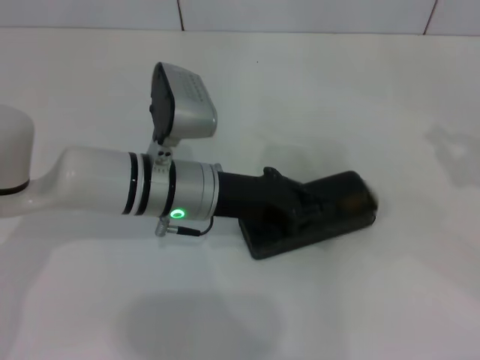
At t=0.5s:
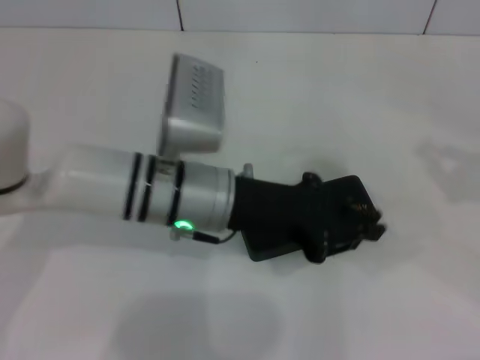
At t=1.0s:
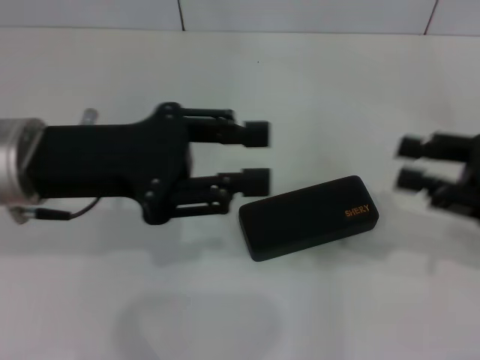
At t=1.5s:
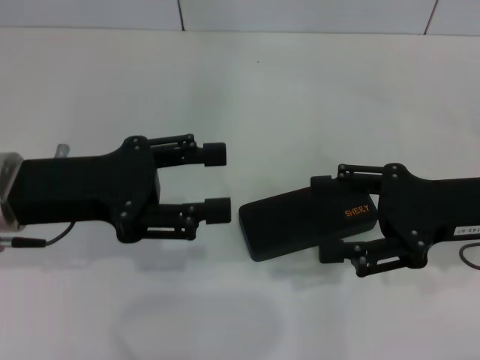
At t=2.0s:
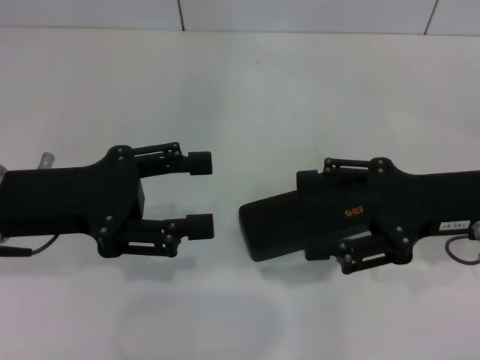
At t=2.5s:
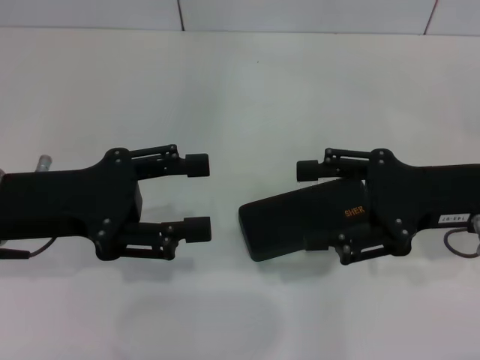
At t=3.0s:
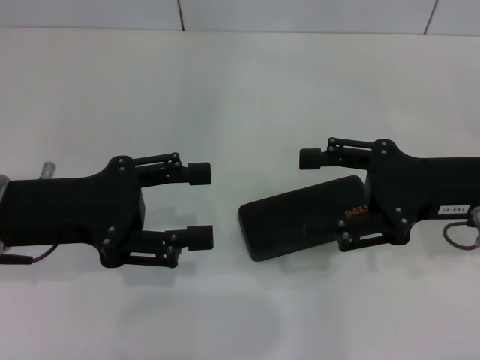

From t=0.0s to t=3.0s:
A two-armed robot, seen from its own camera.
From t=0.0s to t=1.5s: The left gripper goes some 15 cm to the left, upward and backward, and opens. The right gripper is displaced to the left by about 15 cm, and opens.
From t=1.5s to t=3.0s: The grippers move only a little.

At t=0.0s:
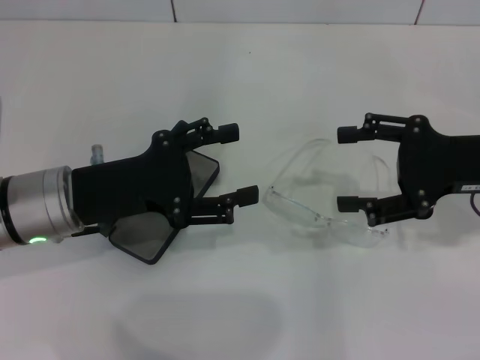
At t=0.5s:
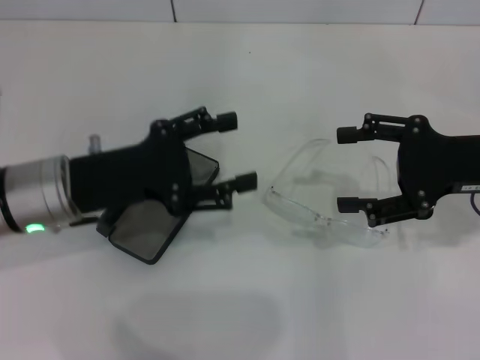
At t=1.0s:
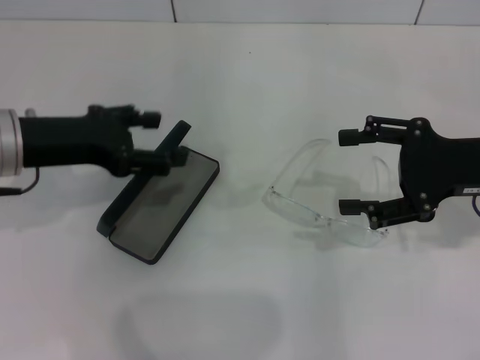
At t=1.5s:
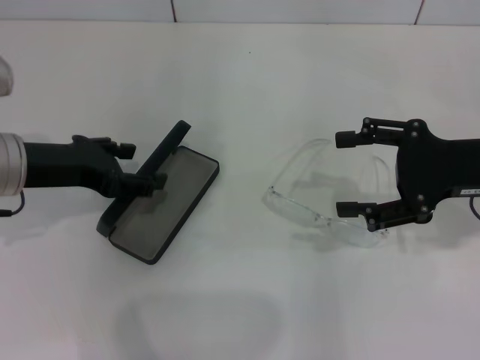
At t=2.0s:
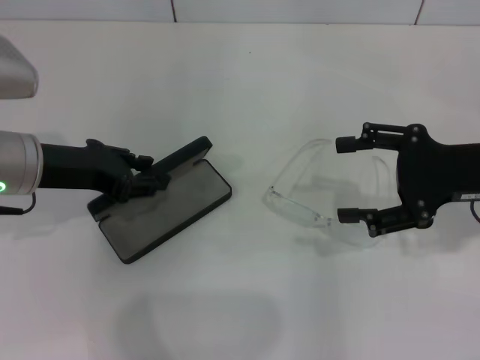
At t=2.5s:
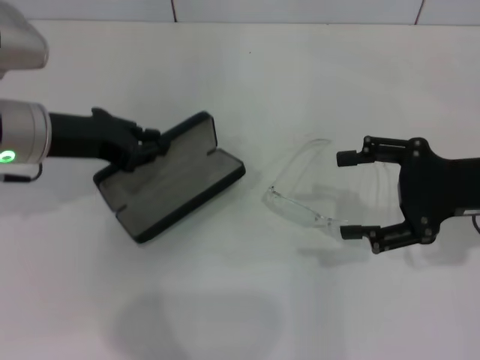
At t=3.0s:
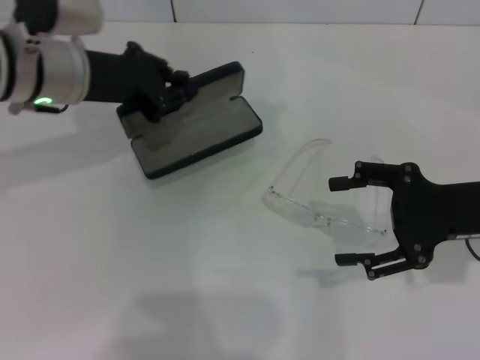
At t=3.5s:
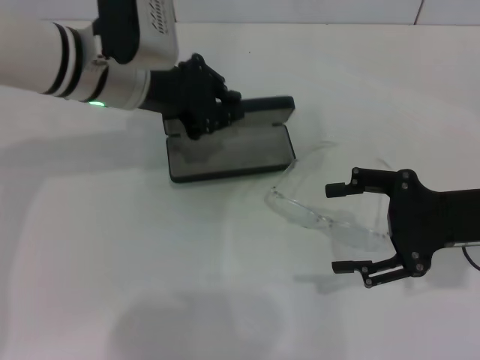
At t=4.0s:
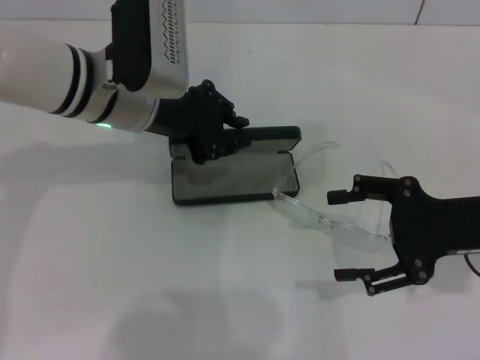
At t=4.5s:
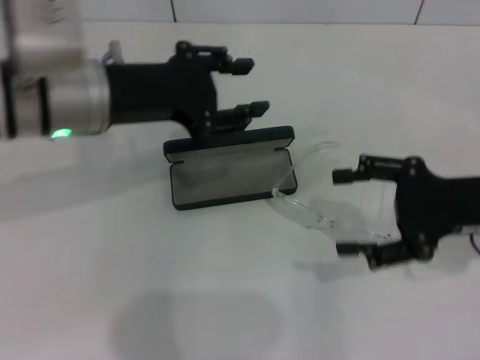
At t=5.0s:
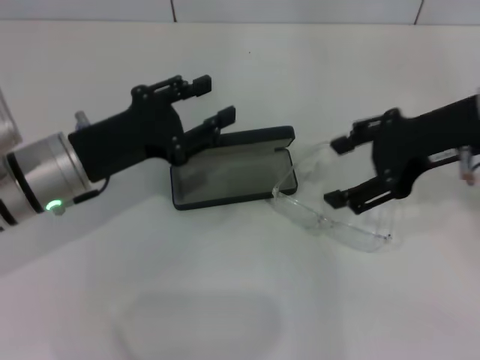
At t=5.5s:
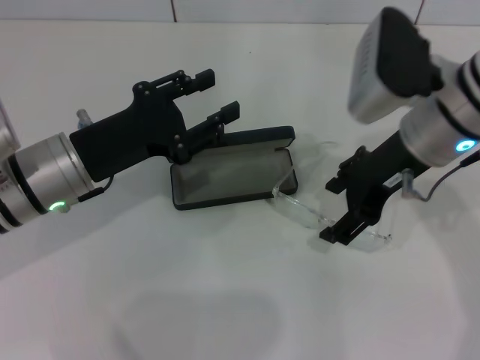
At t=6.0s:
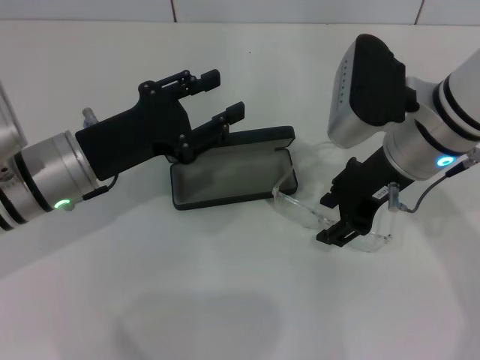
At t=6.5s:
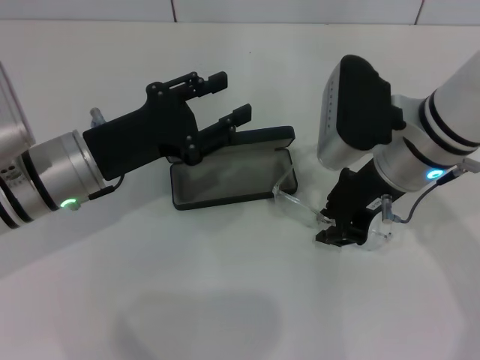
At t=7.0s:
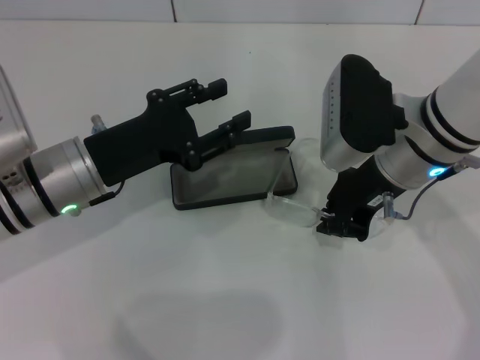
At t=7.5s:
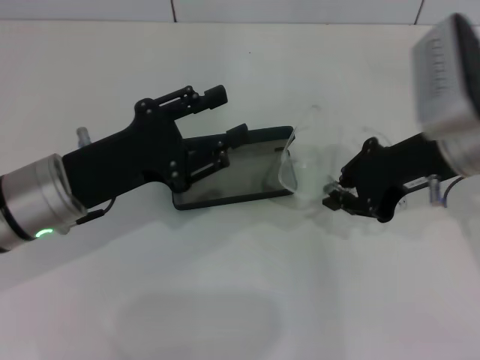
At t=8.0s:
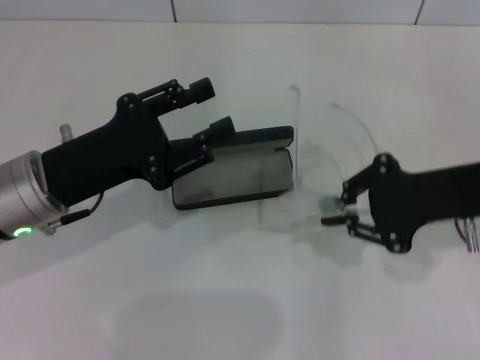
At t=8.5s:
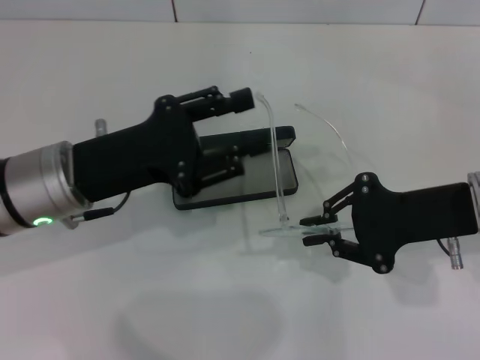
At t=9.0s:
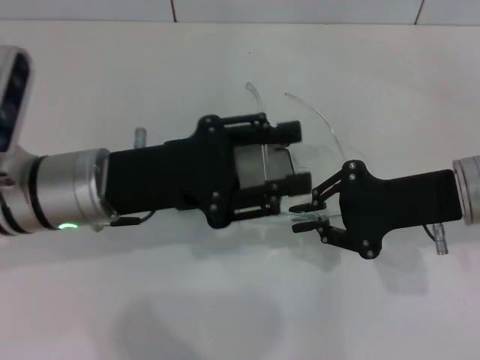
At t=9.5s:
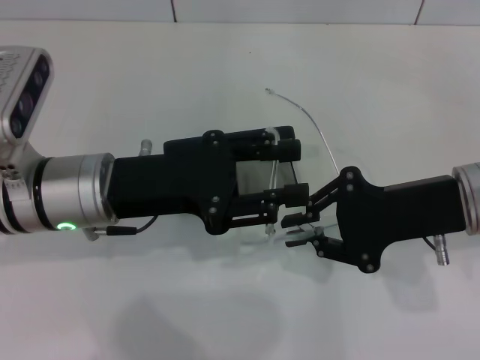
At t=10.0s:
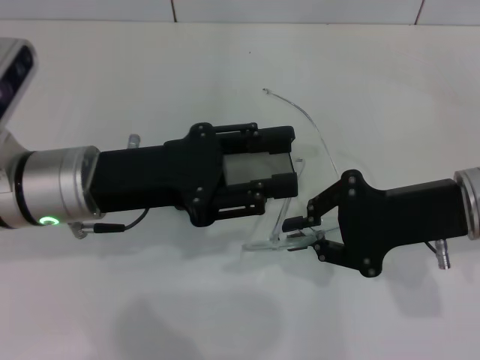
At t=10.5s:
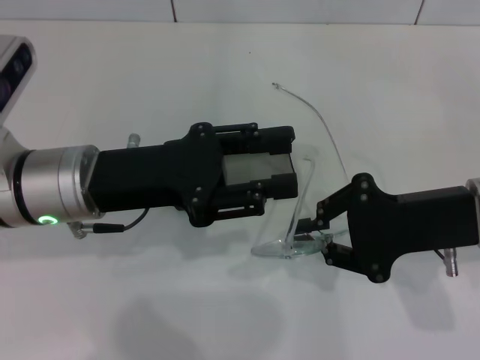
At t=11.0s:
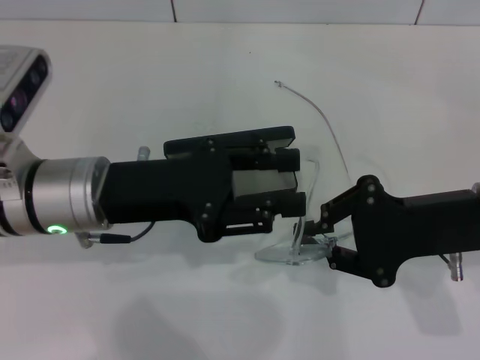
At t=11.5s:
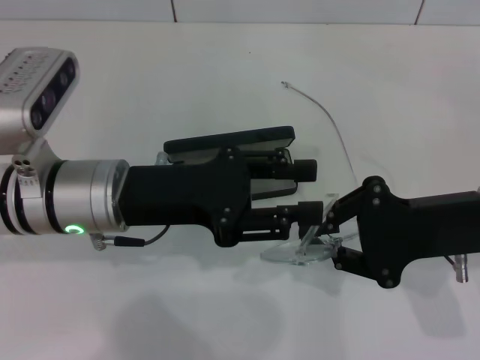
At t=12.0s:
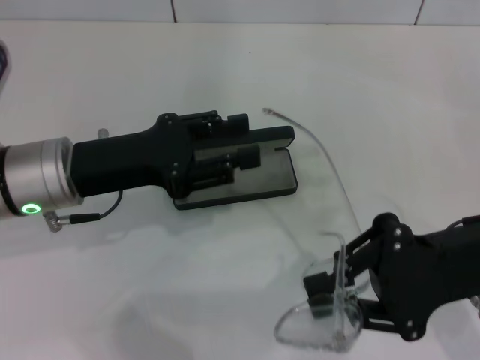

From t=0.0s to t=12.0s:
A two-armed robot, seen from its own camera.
Step, from t=0.0s to t=2.0s: Grab the glasses case with your left hand.
Step, from t=2.5s to t=4.0s: Place the glasses case in the center of the table with your left hand.
Step, from t=4.5s to t=6.5s: Grab the eyeglass frame with your right hand.
From t=0.0s to t=2.0s: The left gripper ends up about 5 cm from where it was, and closes.
From t=2.0s to t=4.0s: The left gripper travels to the right and forward by about 10 cm, and closes up.
From t=4.0s to t=6.0s: The right gripper travels to the left and forward by approximately 15 cm, while the left gripper heads backward, to the left and downward, covering approximately 10 cm, and opens.
From t=6.0s to t=8.0s: The right gripper heads to the right and backward, covering some 10 cm, and closes up.

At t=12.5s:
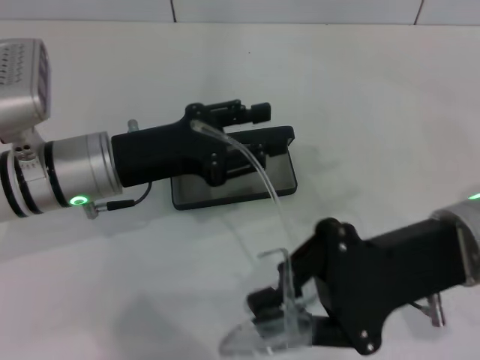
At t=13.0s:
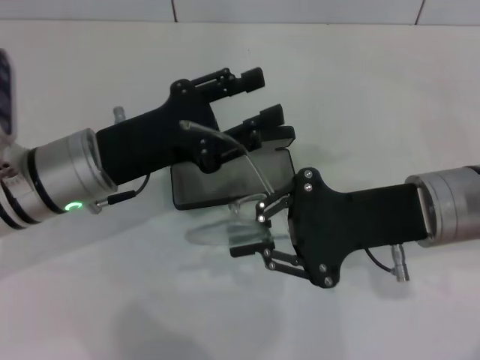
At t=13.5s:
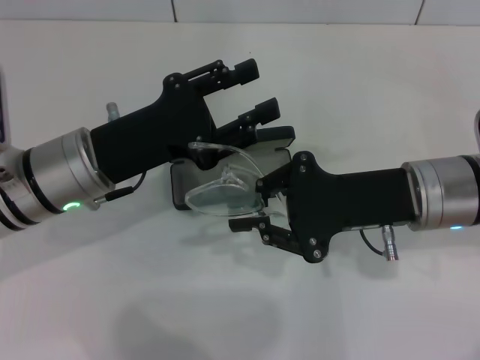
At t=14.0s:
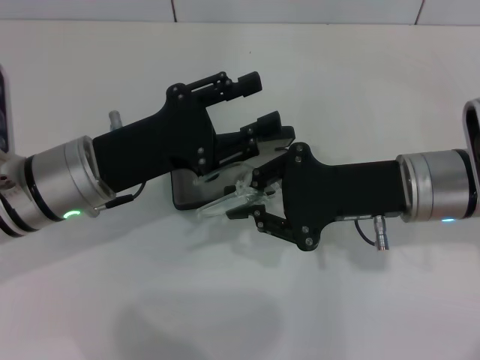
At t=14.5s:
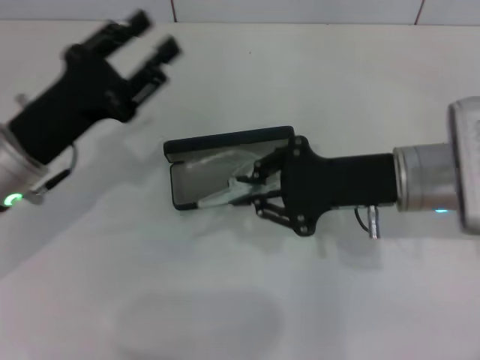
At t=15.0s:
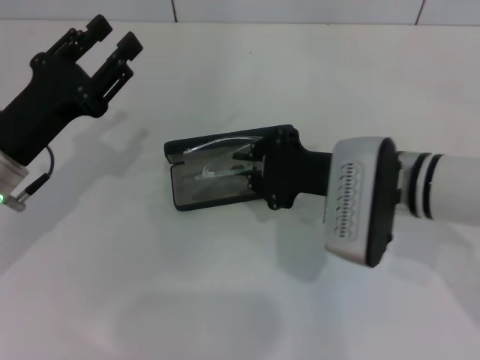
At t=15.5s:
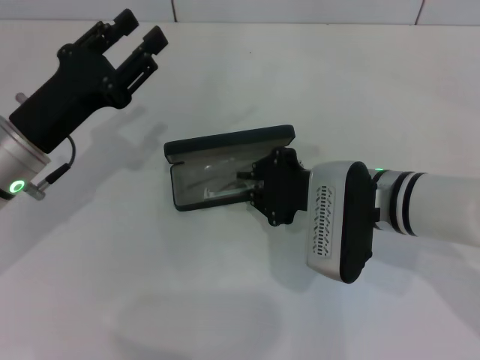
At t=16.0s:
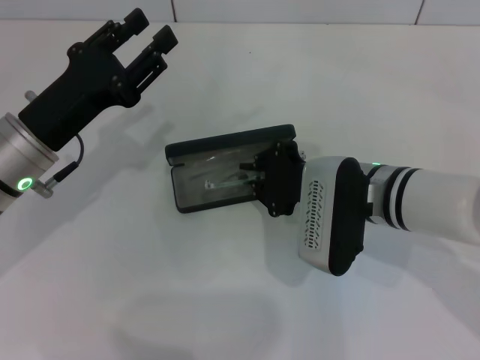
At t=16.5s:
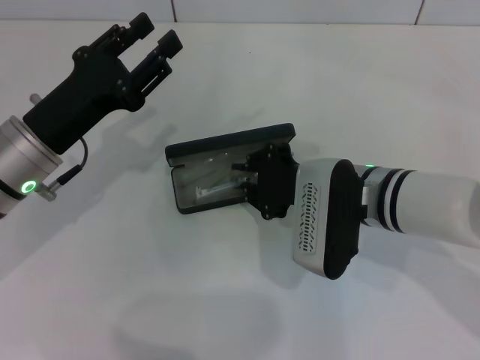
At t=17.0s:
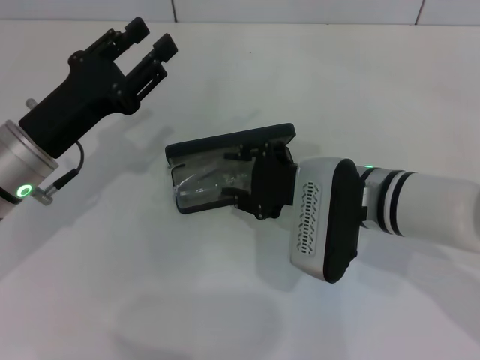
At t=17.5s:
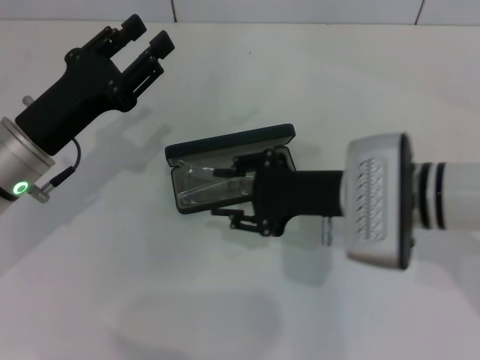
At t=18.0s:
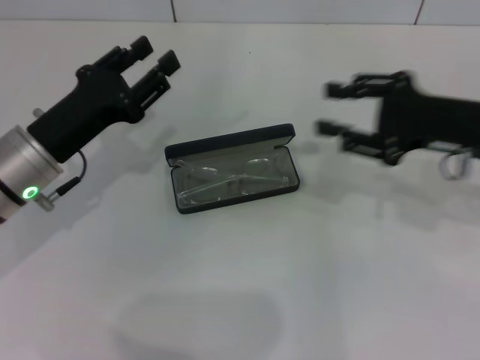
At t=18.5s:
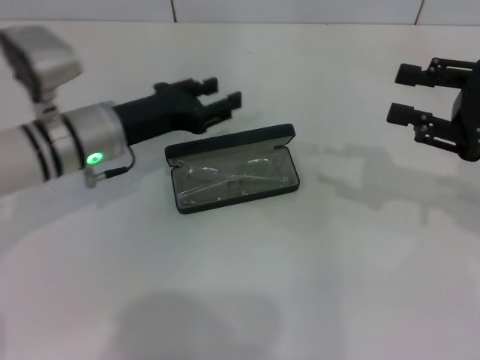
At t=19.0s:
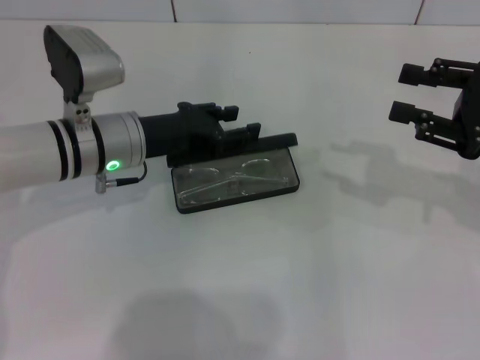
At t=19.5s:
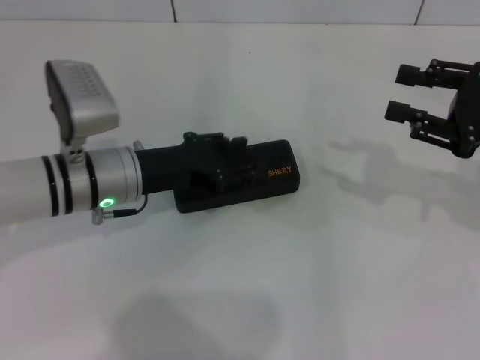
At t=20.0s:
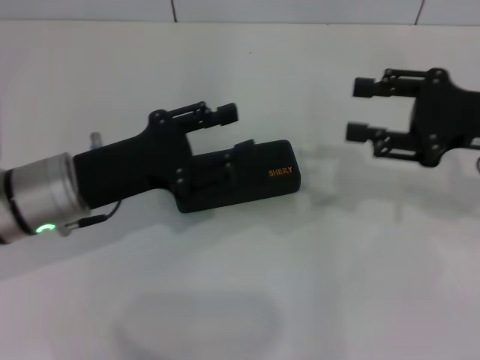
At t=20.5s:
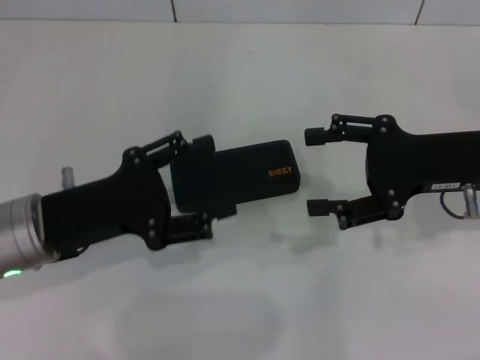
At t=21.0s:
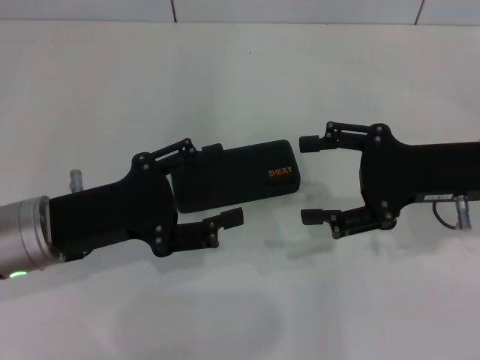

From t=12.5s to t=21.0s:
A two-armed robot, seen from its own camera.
Step, from t=14.5s to t=17.0s: Put the glasses into the case with your right hand.
Step, from t=17.5s to t=19.0s: Close the glasses case with your left hand.
From t=12.5s to t=14.5s: The right gripper shifts roughly 5 cm forward. Meanwhile the left gripper is displaced to the left by about 5 cm.
From t=14.5s to t=16.5s: The right gripper travels to the left by roughly 5 cm.
From t=16.5s to t=19.0s: The left gripper heads forward and to the right, covering some 10 cm. Meanwhile the right gripper heads to the right, covering about 20 cm, and opens.
From t=19.0s to t=21.0s: The right gripper goes roughly 10 cm to the left, and opens up, while the left gripper heads backward and to the left, covering roughly 10 cm, and opens its fingers.

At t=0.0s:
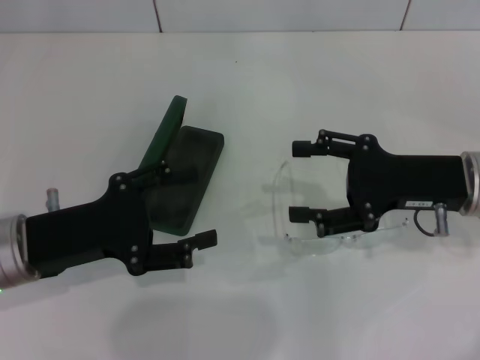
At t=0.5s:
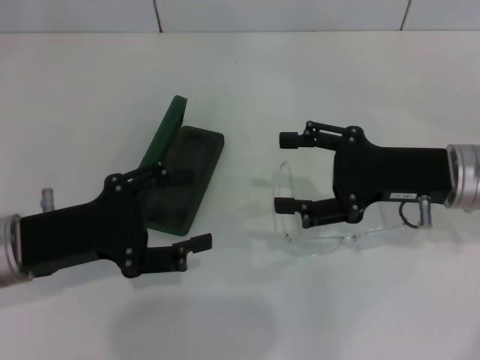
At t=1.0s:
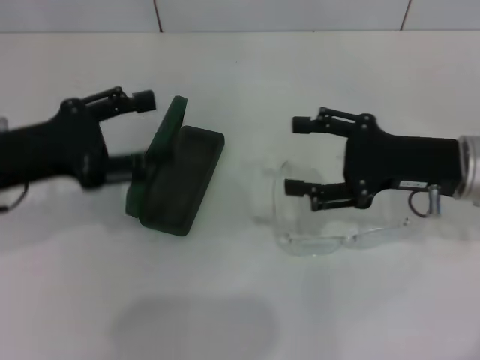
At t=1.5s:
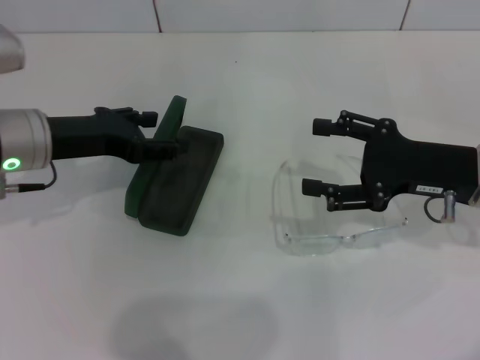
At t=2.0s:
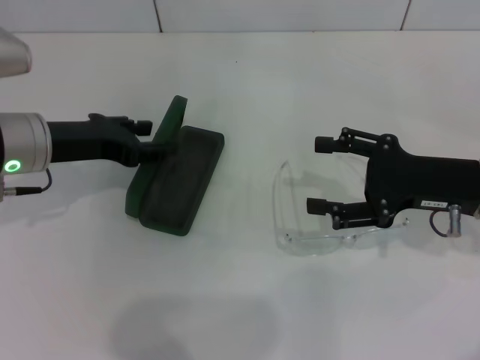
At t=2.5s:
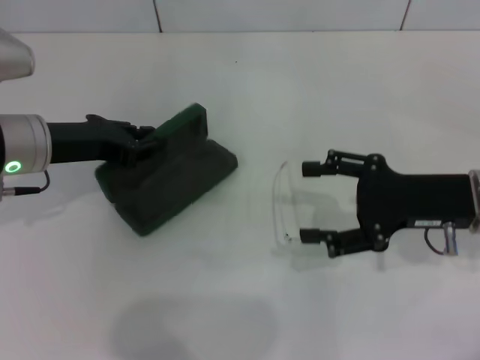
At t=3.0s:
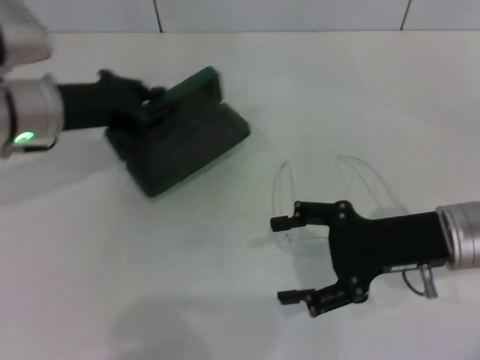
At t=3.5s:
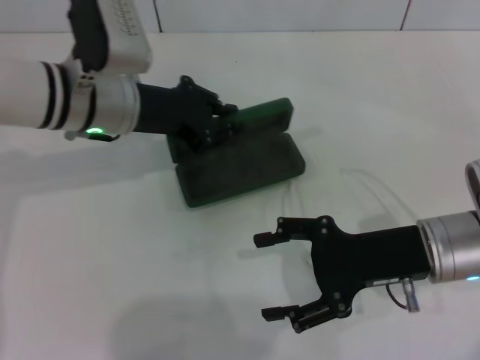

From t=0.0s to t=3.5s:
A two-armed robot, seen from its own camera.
Step, from t=0.0s to t=2.5s: Grab the glasses case with your left hand.
From t=0.0s to t=2.0s: The left gripper travels forward by some 10 cm.
From t=2.0s to t=3.5s: The left gripper moves to the right, some 10 cm, and closes, while the right gripper travels to the left by roughly 5 cm.
